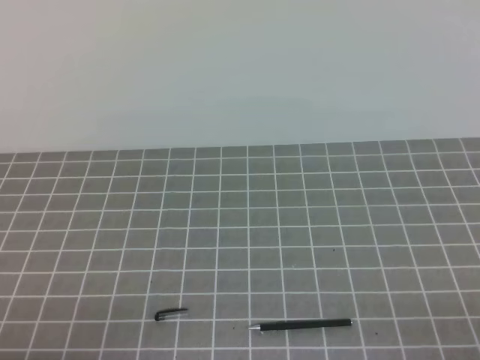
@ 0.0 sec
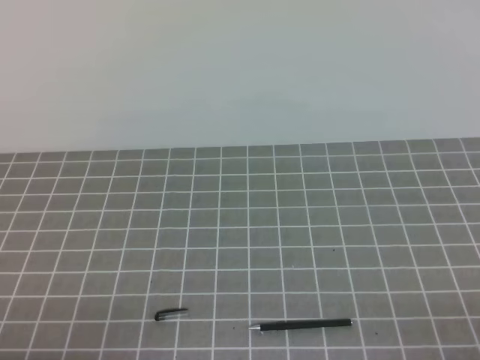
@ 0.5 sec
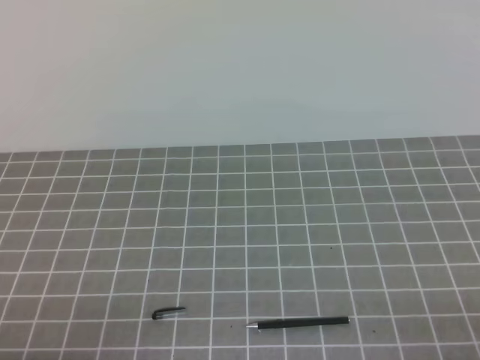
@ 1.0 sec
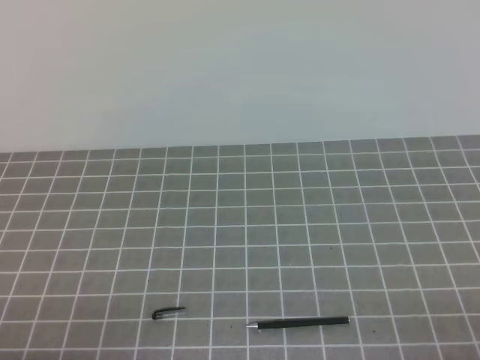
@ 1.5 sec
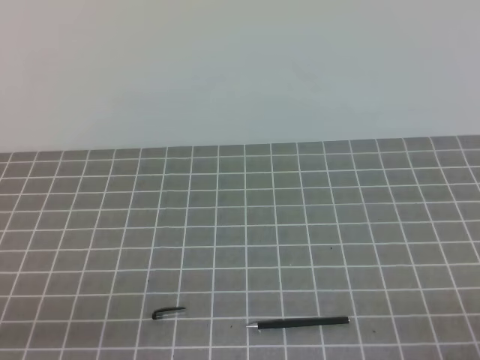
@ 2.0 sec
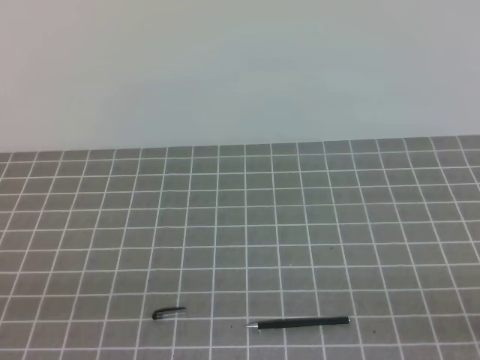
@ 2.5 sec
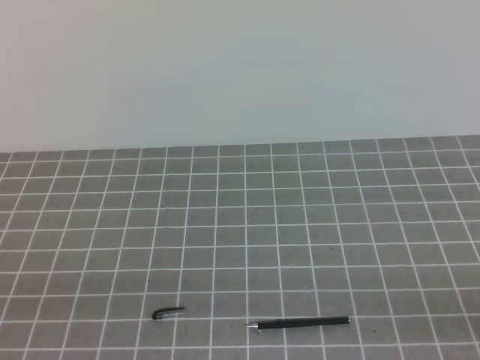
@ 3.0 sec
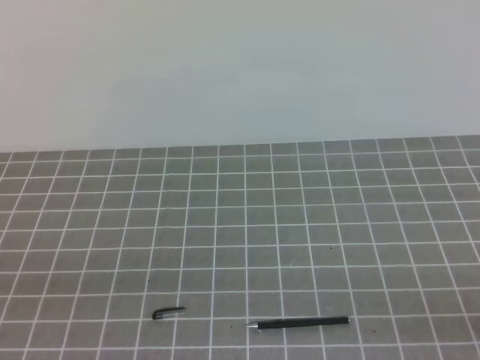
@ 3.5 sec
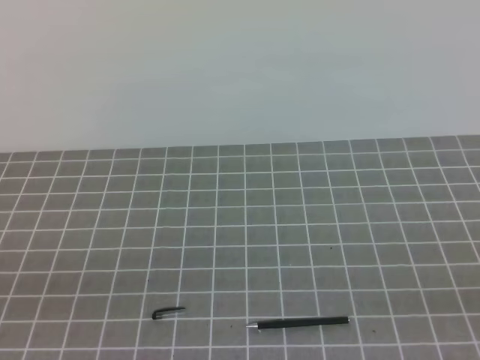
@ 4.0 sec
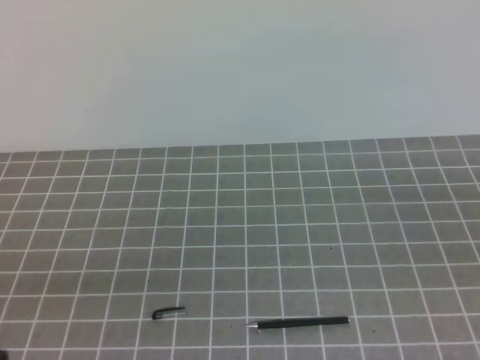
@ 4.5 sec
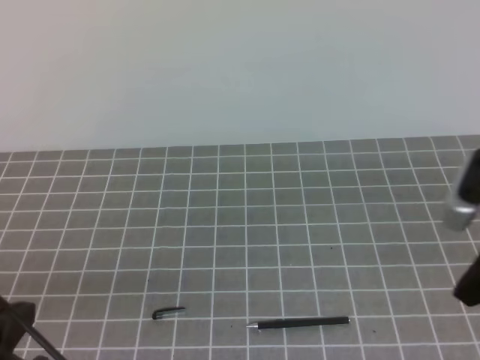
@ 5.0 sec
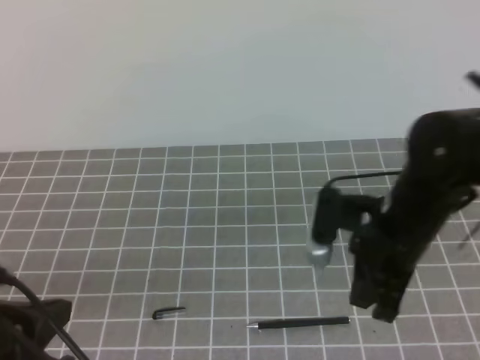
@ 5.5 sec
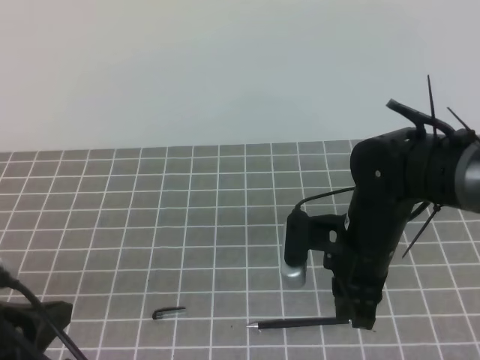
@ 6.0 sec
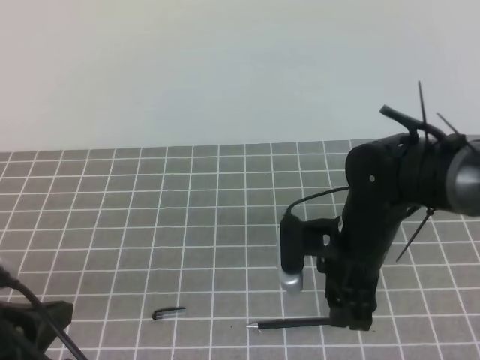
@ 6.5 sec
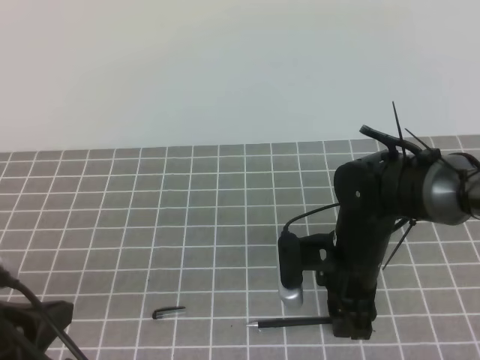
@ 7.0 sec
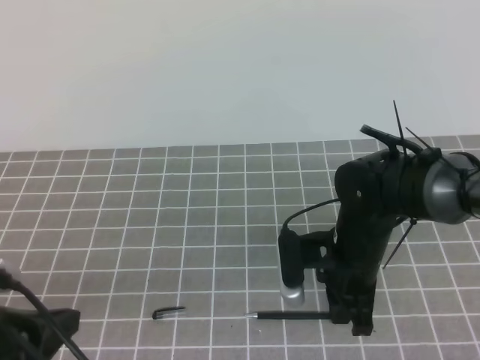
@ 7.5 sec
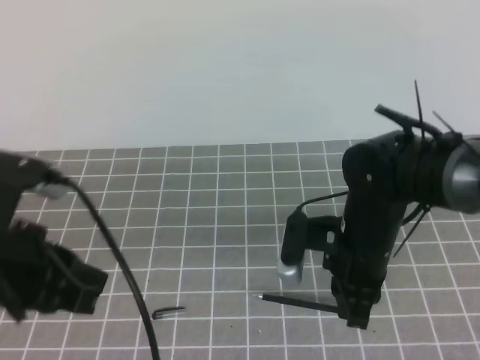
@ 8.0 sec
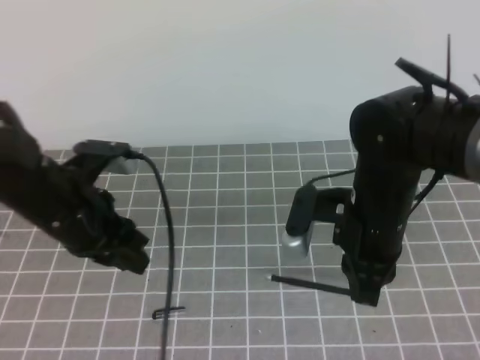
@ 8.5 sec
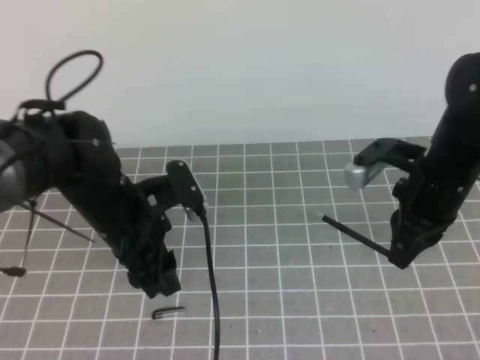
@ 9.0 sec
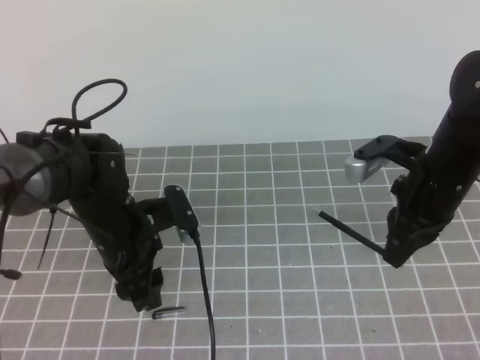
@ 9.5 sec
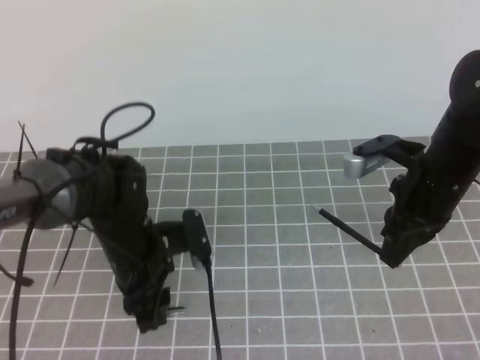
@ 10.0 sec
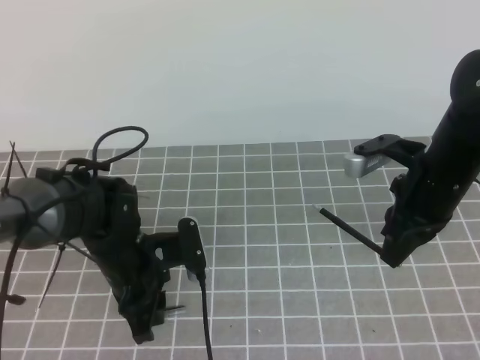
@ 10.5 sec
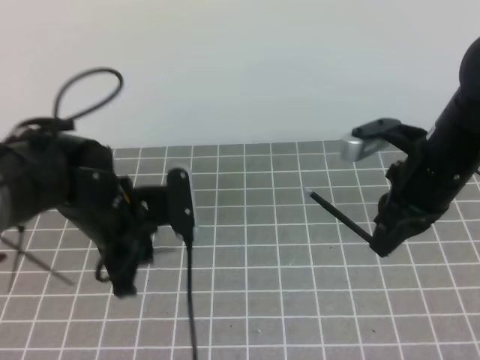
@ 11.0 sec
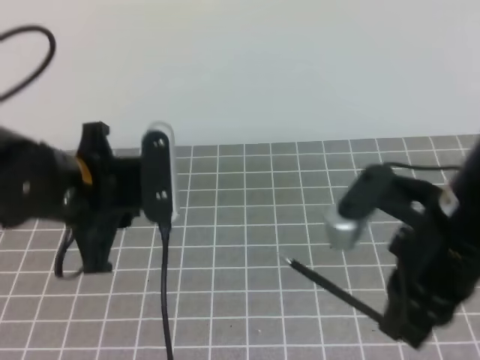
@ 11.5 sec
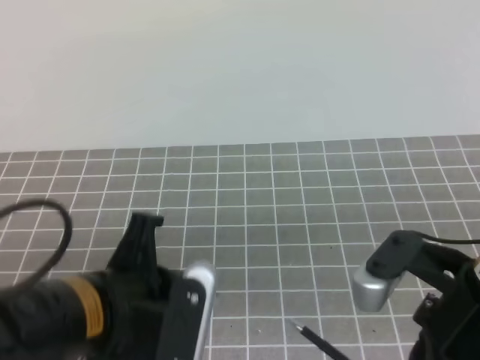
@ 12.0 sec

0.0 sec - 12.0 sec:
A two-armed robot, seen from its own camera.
Task of the whole recording: on the grey tablecloth, hold the pen cap in one hand and the pen in the other, then cover the pen cap.
Step, 0.0 sec - 6.0 sec: Grab the pen barrel with the right hand.
Step, 6.5 sec - 8.5 sec: Grab the pen cap with the left hand.
0.0 sec - 2.0 sec: The grippers make only small movements.
4.0 sec - 6.0 sec: The right gripper shifts approximately 35 cm forward and to the left, and opens its fingers. Meanwhile the left gripper moves forward, some 10 cm.
6.0 sec - 8.0 sec: The left gripper goes approximately 5 cm forward. The right gripper opens and closes again.
8.0 sec - 10.0 sec: The left gripper heads downward, forward and to the right, covering roughly 20 cm, and opens its fingers. Meanwhile the right gripper heads to the right and upward, covering about 10 cm.
10.0 sec - 12.0 sec: The left gripper goes about 20 cm backward and upward, and closes; the right gripper shifts approximately 20 cm backward.

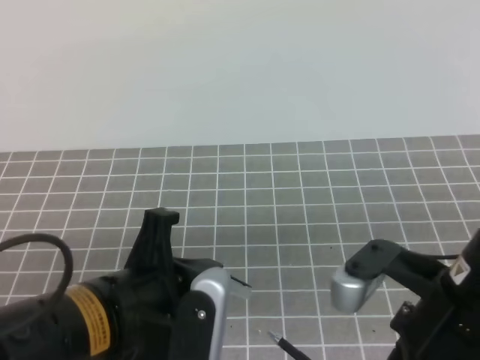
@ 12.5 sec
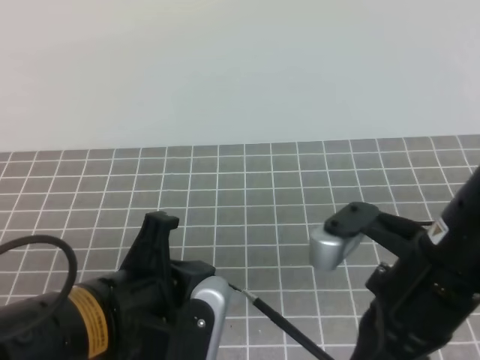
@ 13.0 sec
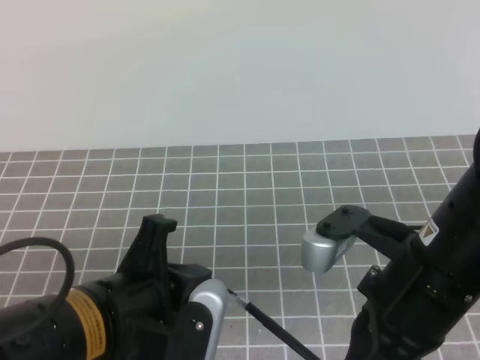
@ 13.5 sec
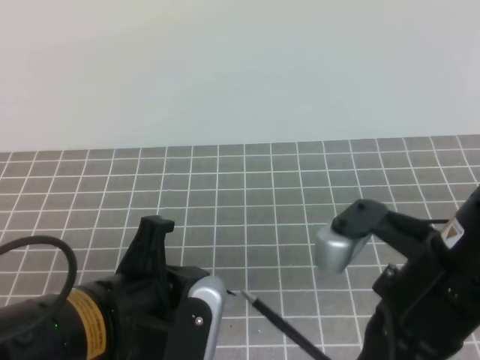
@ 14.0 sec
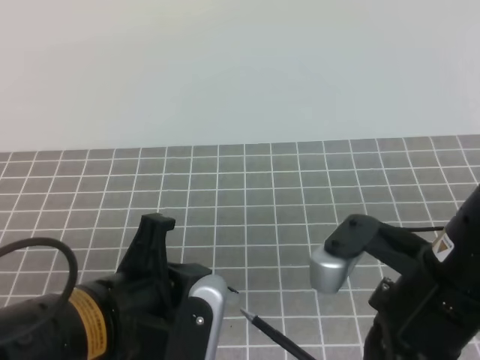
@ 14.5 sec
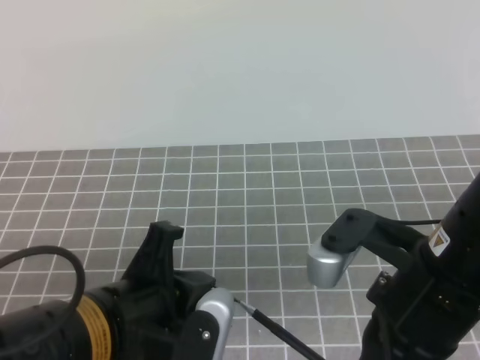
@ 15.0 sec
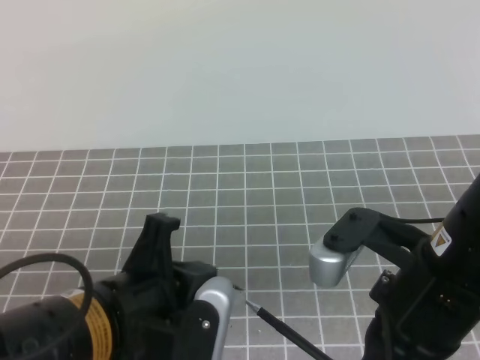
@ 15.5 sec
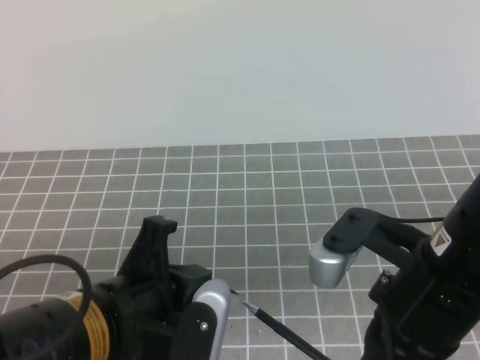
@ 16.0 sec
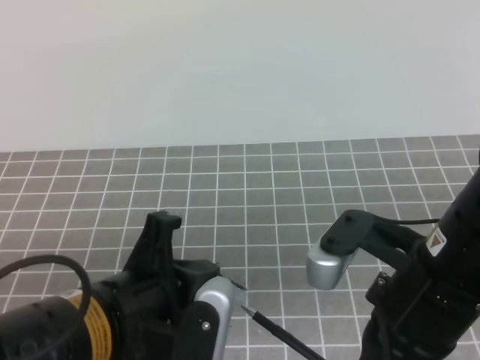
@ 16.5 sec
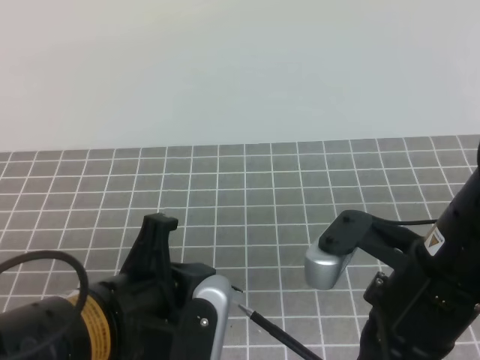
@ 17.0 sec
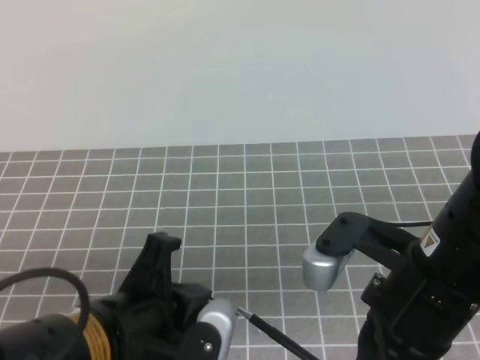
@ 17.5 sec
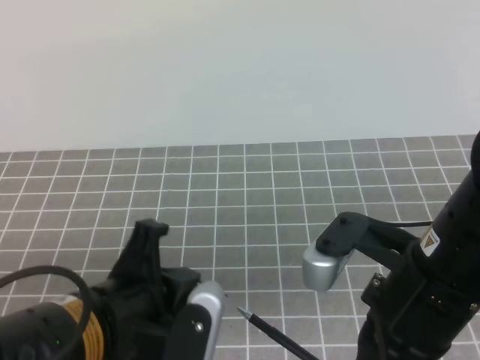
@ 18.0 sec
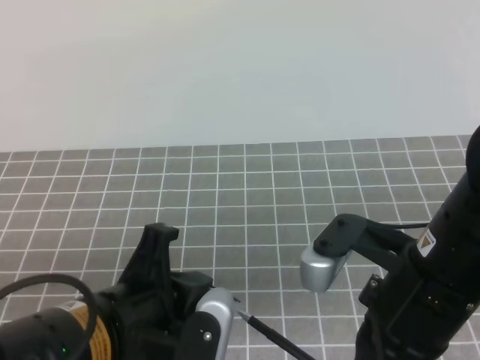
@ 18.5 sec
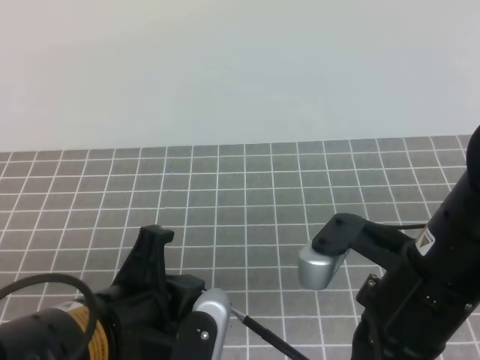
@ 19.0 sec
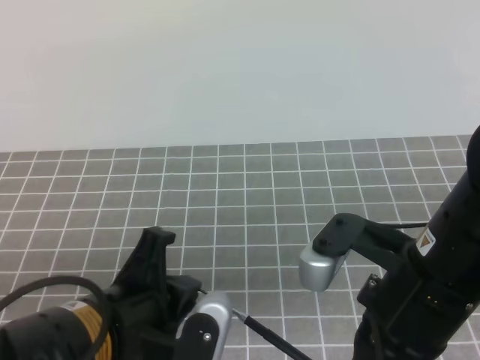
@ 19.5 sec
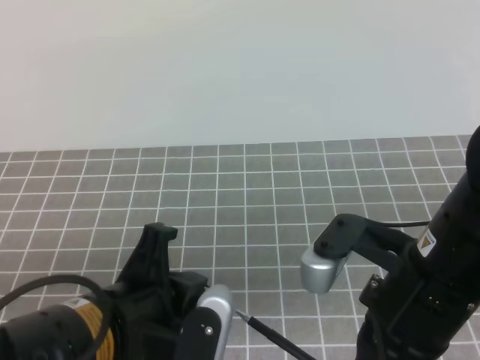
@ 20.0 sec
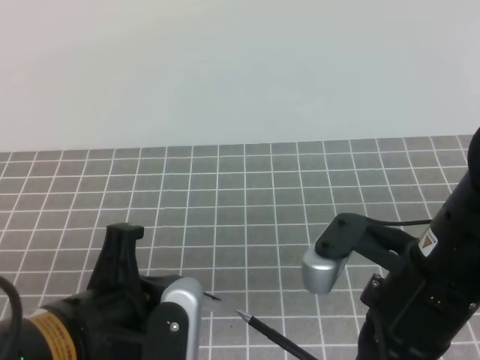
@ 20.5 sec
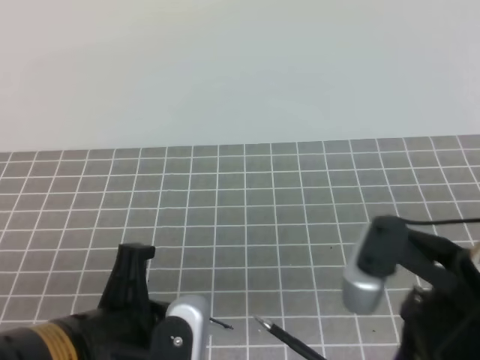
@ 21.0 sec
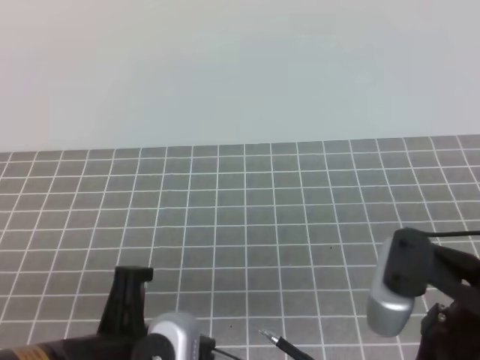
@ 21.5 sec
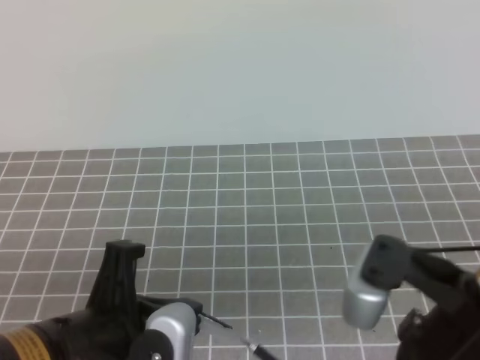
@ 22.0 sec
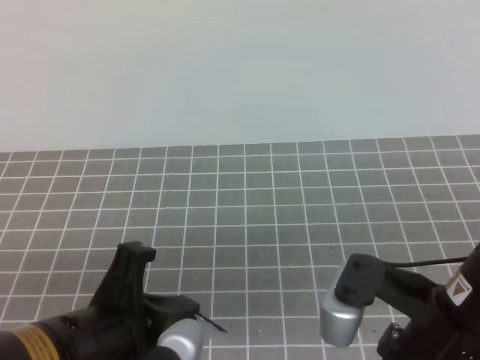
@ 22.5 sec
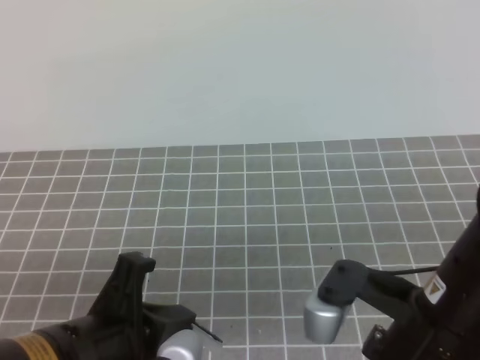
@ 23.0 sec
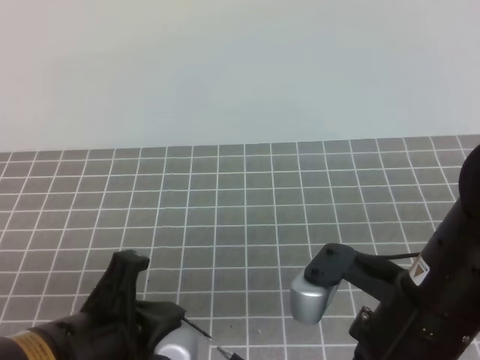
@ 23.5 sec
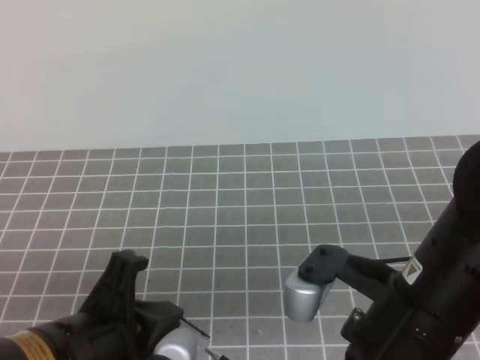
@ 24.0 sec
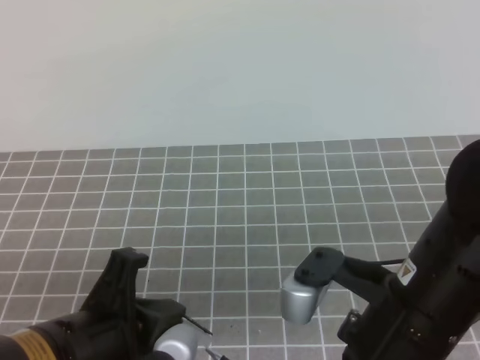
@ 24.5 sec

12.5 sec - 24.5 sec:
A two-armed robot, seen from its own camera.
Task of the whole recording: on the grey tablecloth, hold the pen cap in one hand and the pen in the other, then cover the pen cap.
Step, 12.5 sec - 21.5 sec: Insert the pen cap with the right hand.
Step, 22.0 sec - 24.0 sec: Secure the pen cap with the left hand.
12.5 sec - 14.5 sec: The grippers move only a little.
14.5 sec - 18.5 sec: Both grippers stay about where they are.
18.5 sec - 24.5 sec: The grippers make only small movements.

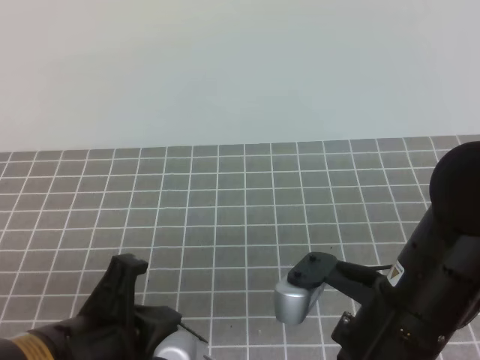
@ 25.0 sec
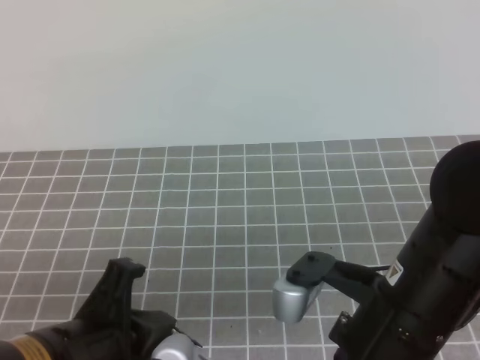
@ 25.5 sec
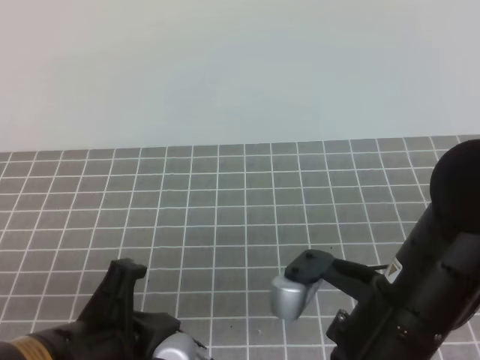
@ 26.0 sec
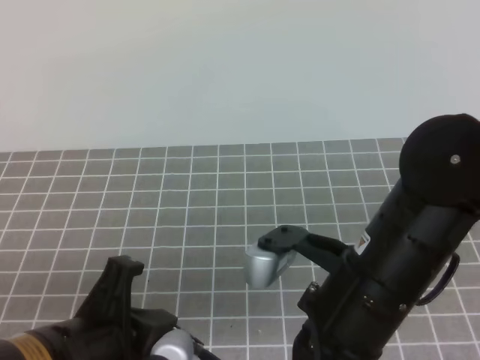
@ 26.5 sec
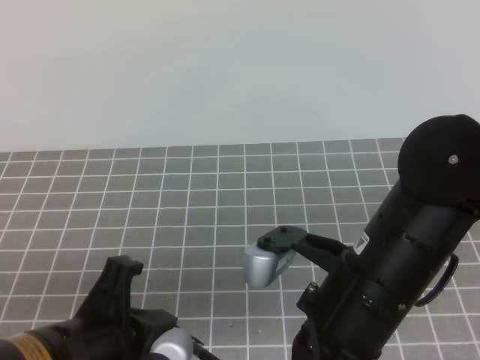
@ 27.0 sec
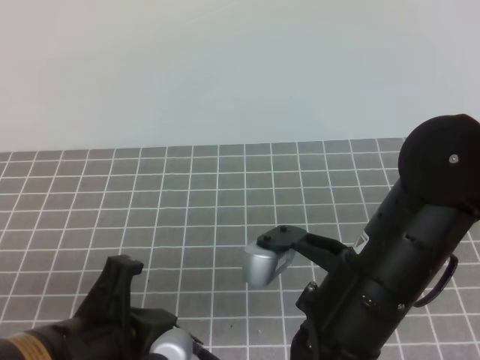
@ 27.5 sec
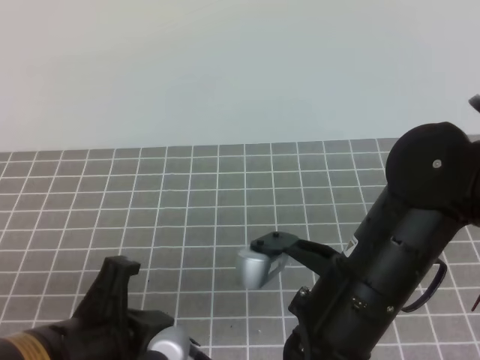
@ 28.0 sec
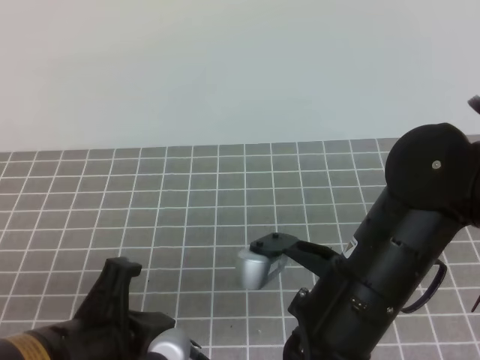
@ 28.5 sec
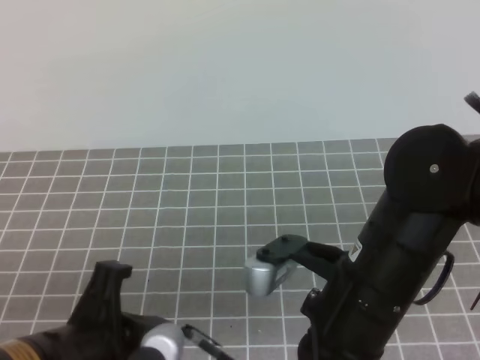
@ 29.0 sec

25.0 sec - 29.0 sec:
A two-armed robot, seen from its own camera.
Task of the whole recording: on the grey tablecloth, hold the pen cap in one hand and the pen in the other, then cover the pen cap.
25.0 sec - 29.0 sec: There are only small adjustments of the grippers.
